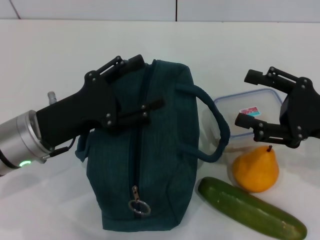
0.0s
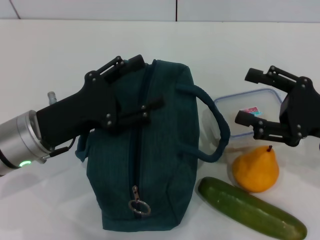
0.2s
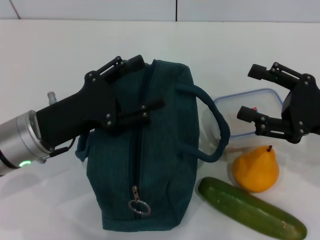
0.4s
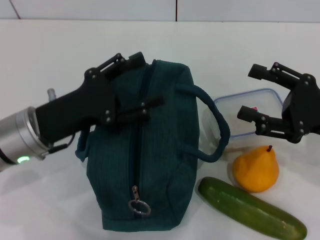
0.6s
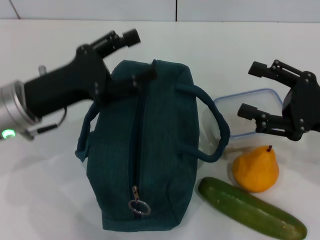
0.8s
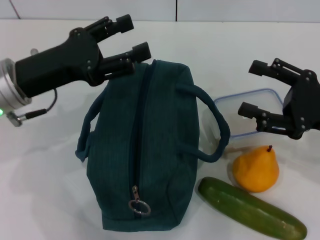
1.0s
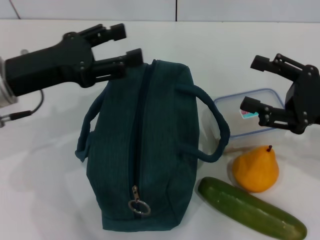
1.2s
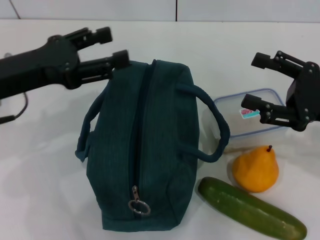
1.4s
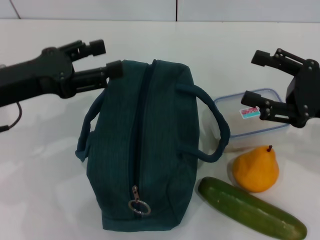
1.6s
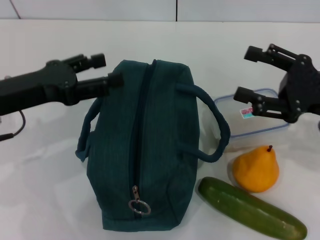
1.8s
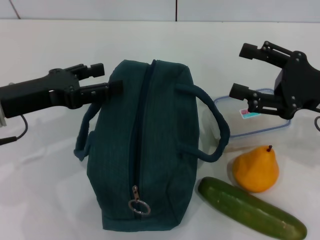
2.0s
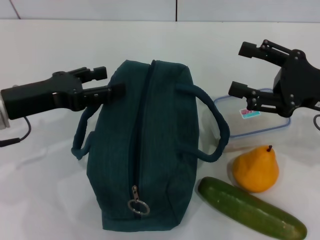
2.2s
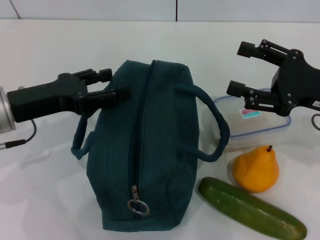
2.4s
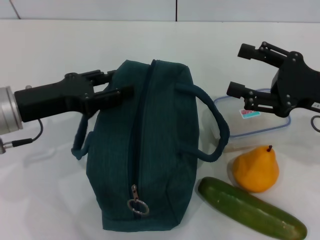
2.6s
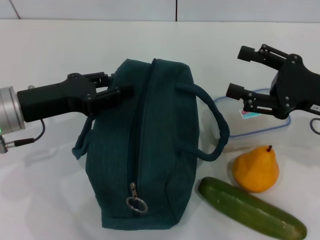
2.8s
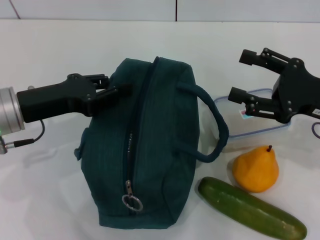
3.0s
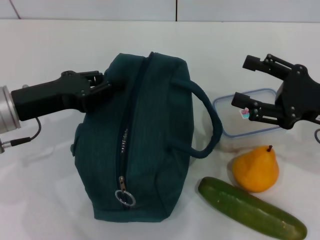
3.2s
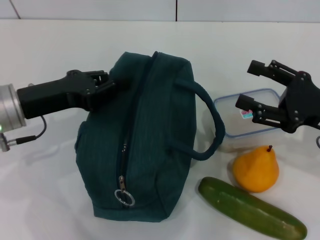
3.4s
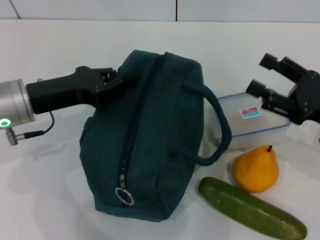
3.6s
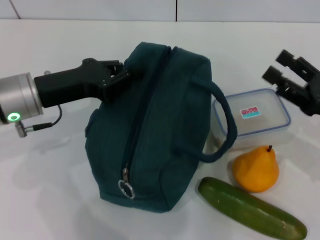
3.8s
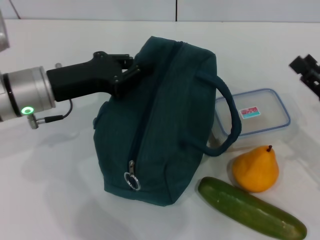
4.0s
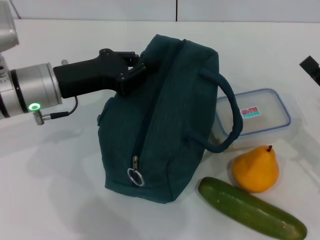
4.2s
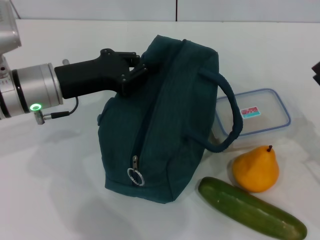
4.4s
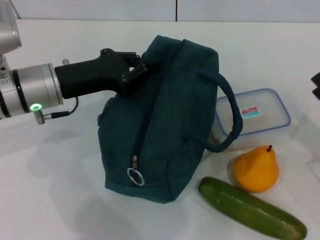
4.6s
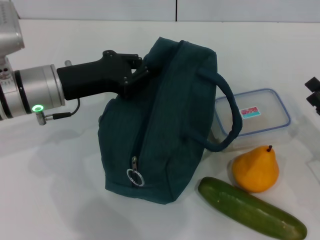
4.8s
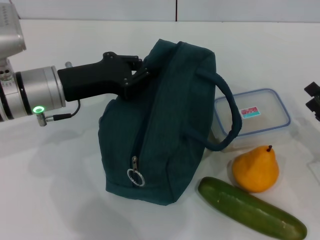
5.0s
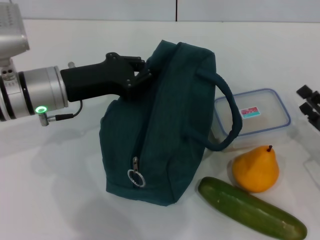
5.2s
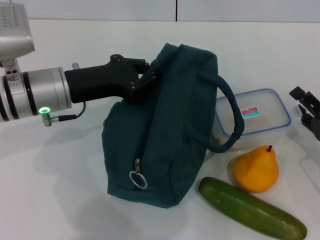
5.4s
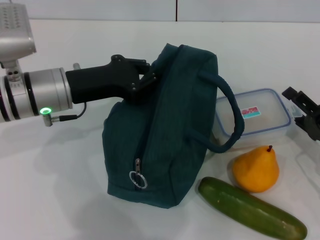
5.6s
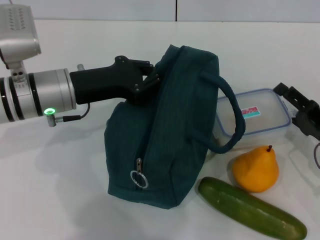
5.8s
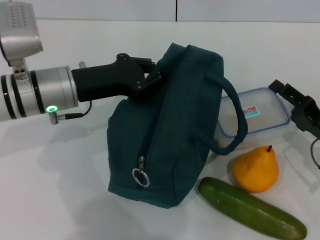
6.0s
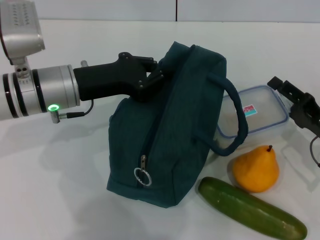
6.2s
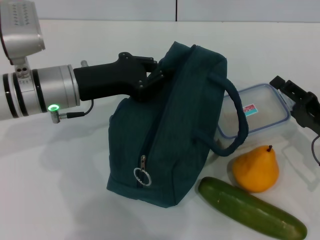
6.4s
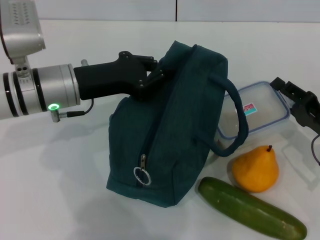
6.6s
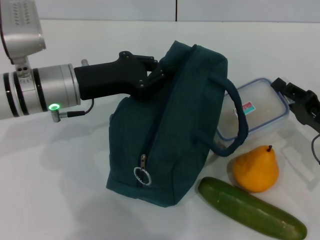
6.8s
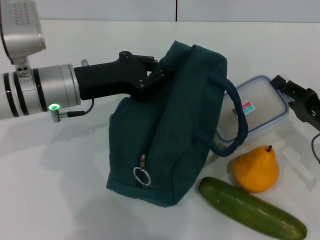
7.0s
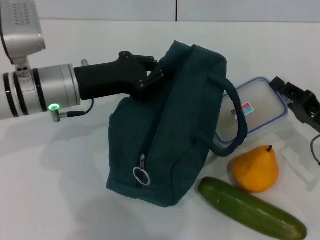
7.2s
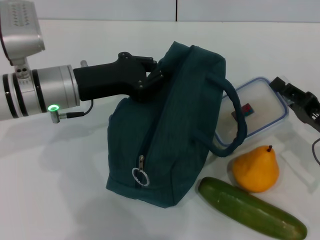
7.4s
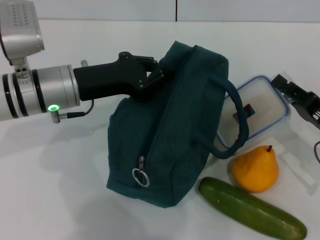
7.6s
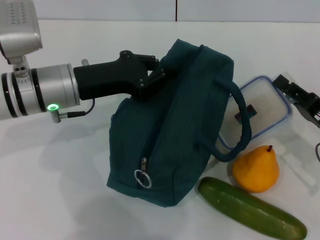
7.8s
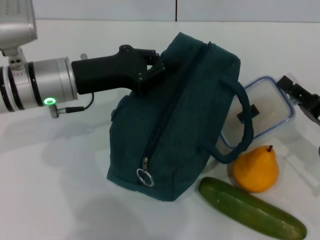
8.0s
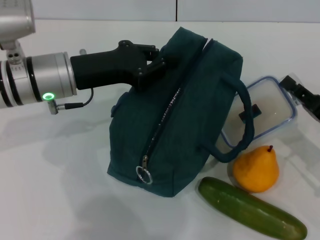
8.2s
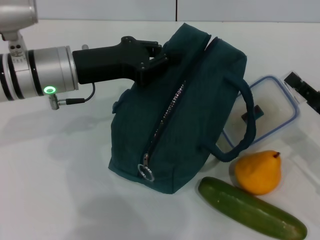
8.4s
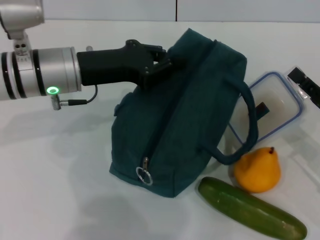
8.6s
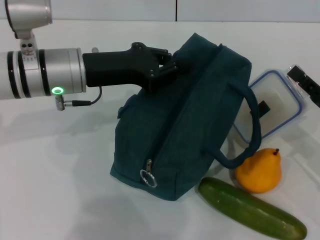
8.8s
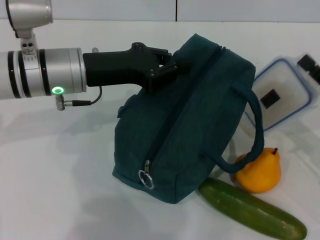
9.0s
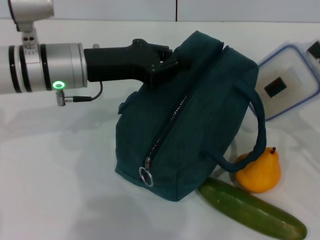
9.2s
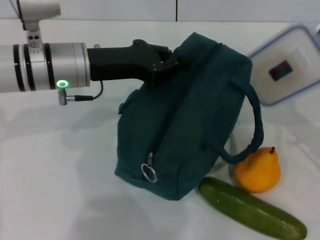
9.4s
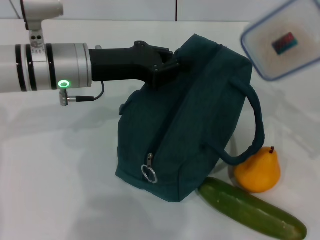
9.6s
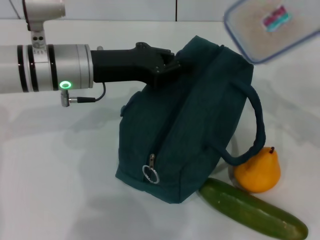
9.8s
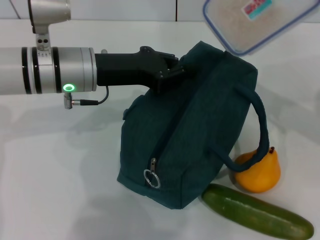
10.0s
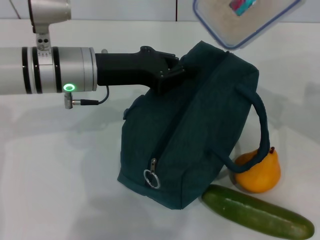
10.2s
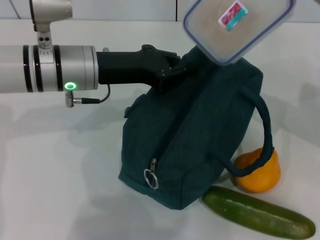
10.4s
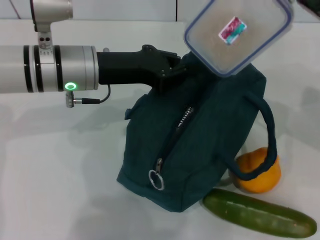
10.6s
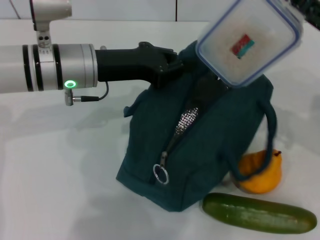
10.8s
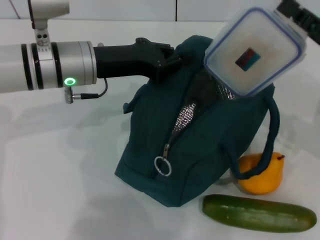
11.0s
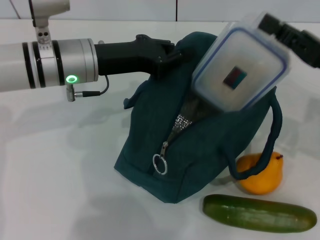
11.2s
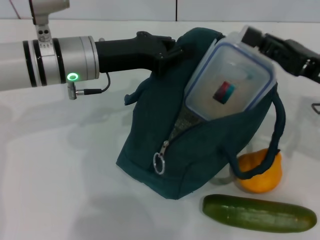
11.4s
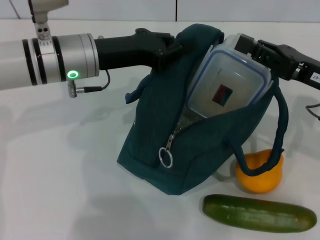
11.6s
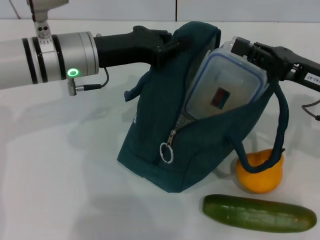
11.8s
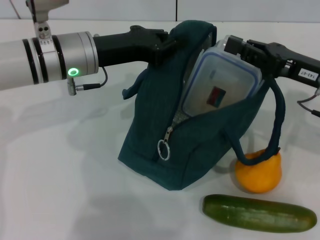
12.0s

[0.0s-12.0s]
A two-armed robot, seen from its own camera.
Step, 0.0s to 5.0s: Hold the lunch bag with your left hand.
Step, 5.2s to 7.6s: Pick up the lunch box with your right hand.
0.0s to 1.6s: The left gripper is displaced upward by approximately 5 cm.
1.6s to 3.0s: The left gripper closes its fingers.
3.0s to 4.4s: The right gripper shifts about 10 cm downward, backward and to the right. The left gripper shifts by roughly 5 cm, and closes.
6.0s to 7.6s: The right gripper closes.
9.0s to 10.4s: The right gripper heads upward, forward and to the left, covering some 15 cm.

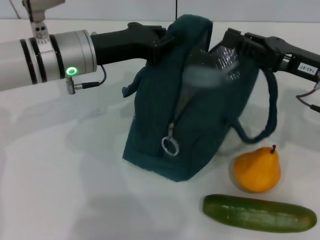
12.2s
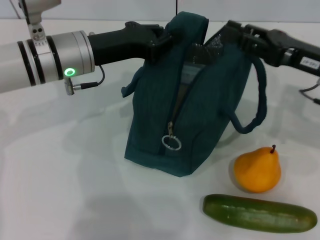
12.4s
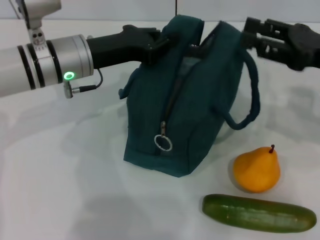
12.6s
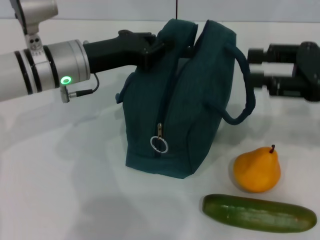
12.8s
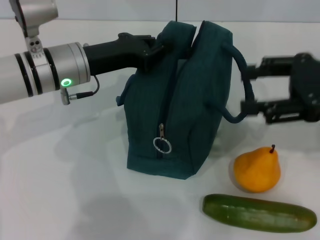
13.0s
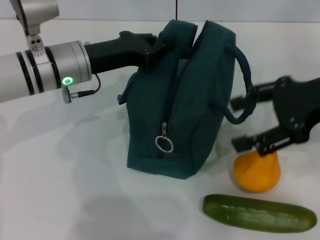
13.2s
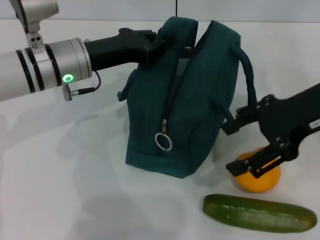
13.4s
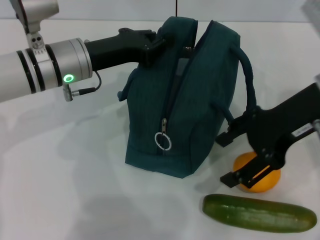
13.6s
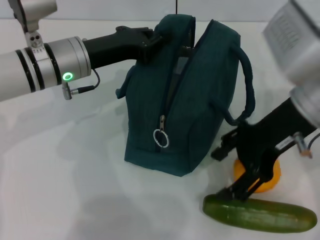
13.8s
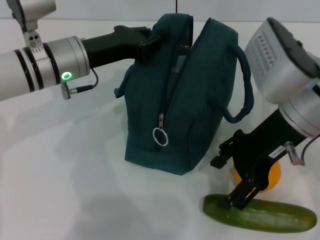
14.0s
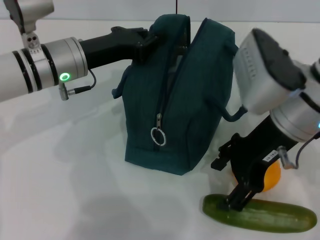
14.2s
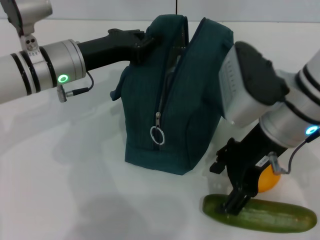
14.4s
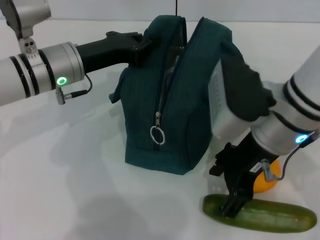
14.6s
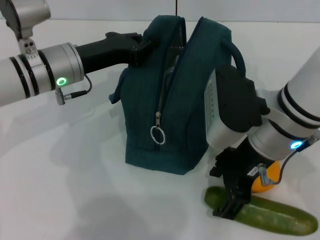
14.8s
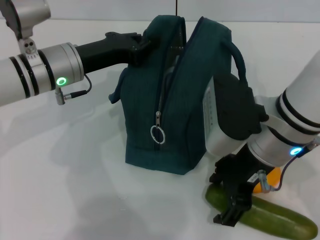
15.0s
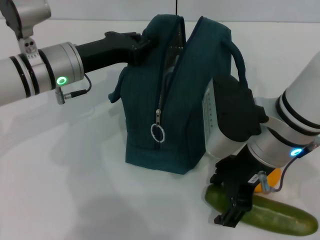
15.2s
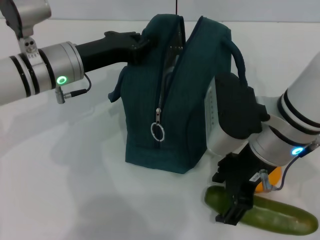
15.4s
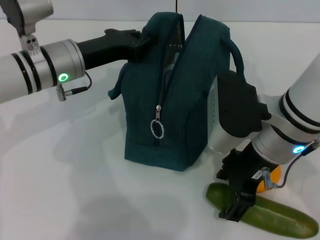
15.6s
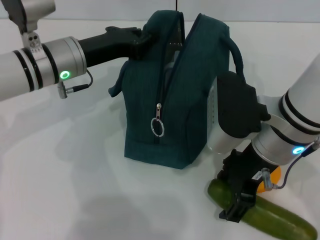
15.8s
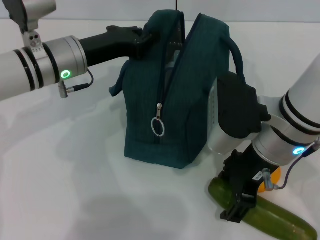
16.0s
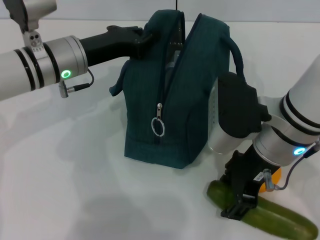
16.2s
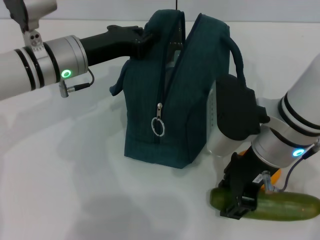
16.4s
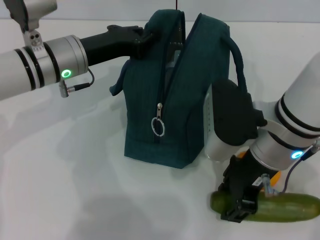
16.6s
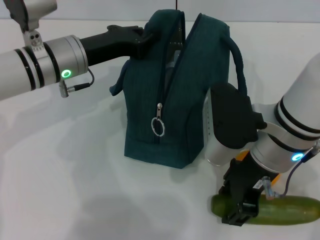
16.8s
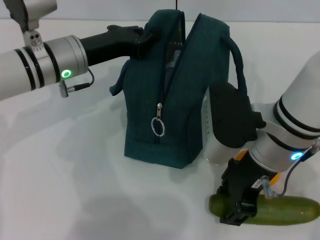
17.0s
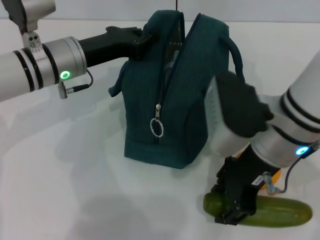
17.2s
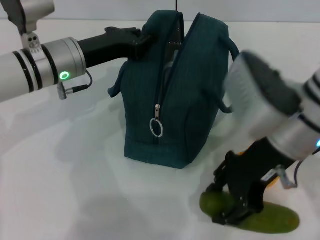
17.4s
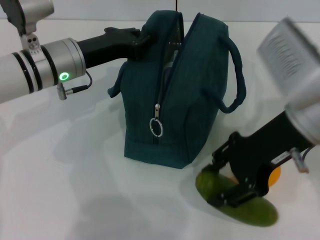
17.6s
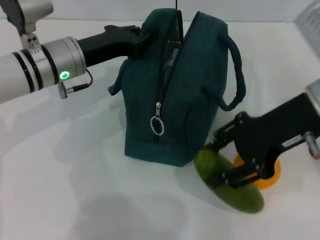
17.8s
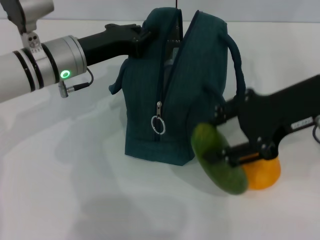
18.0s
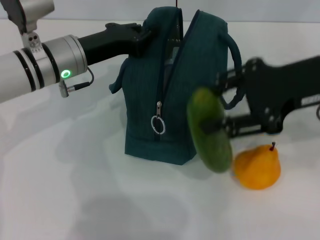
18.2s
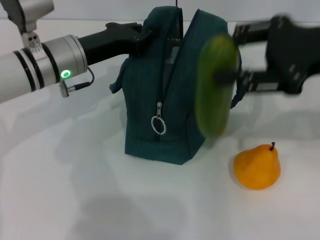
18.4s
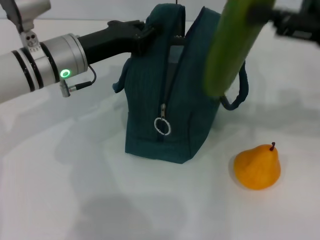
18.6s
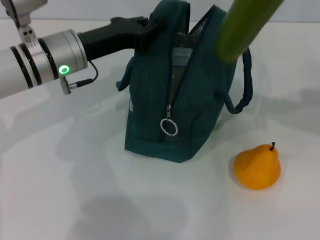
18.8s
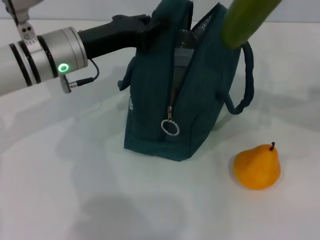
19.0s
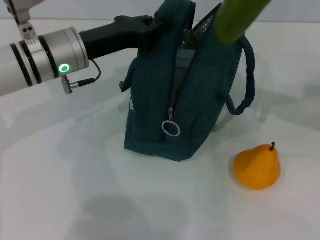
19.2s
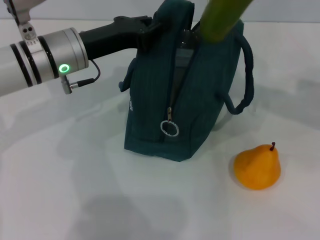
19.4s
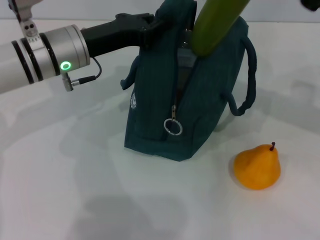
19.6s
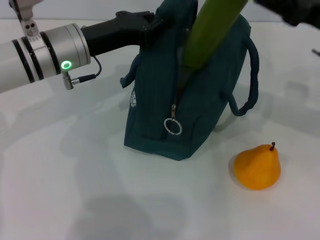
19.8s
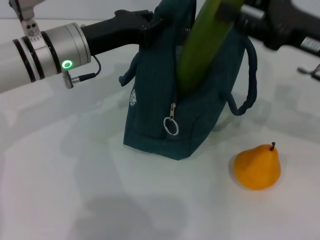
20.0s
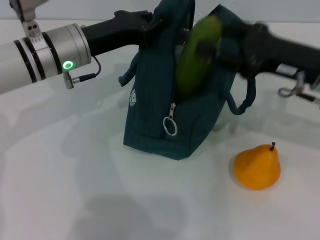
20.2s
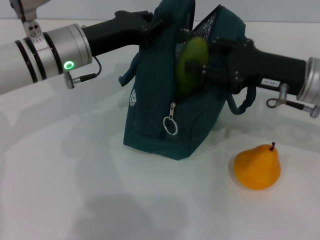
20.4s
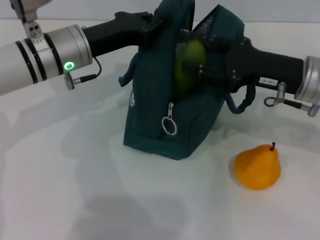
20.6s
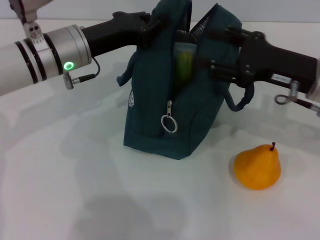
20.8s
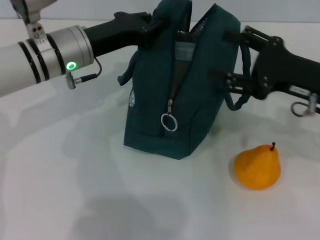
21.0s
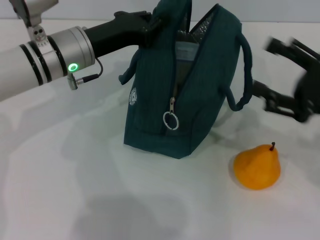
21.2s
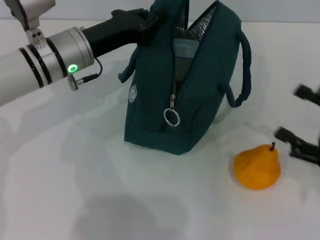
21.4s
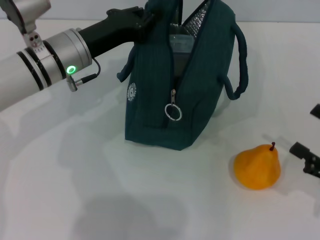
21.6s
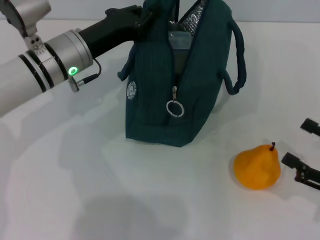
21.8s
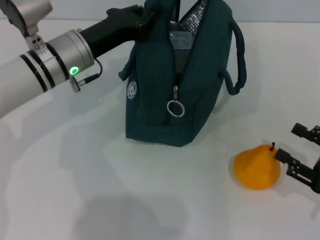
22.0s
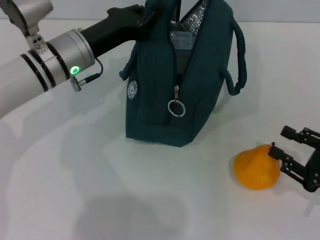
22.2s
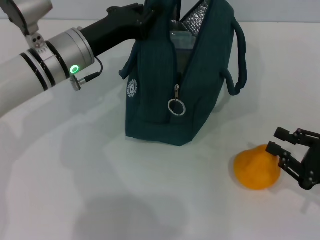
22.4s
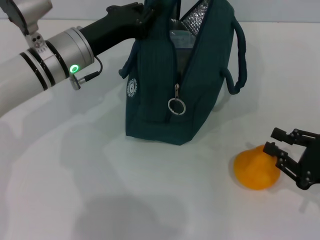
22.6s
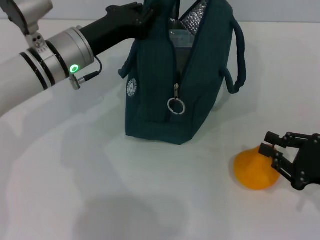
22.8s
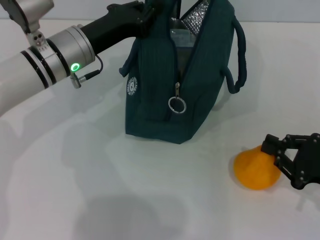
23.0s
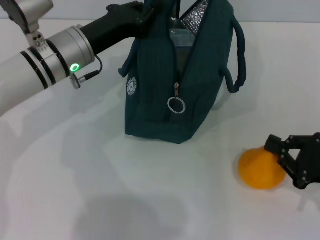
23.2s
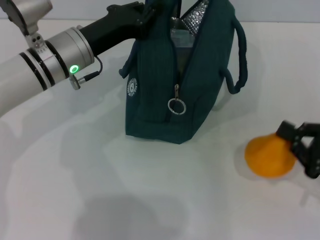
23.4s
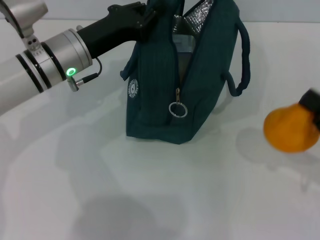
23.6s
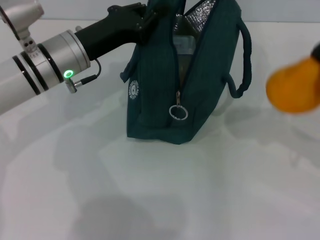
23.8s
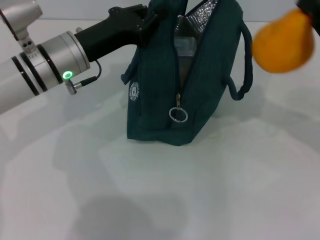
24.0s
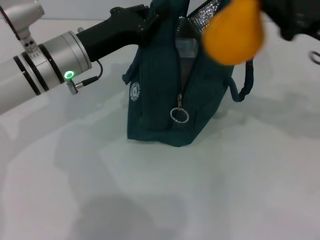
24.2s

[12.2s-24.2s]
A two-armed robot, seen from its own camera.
Step, 13.2s to 16.6s: Pick up the cucumber with your right hand.
Step, 17.0s to 21.2s: Put the cucumber into the lunch bag with your right hand.
Step, 21.4s to 23.0s: Grab the pear with your right hand.
12.2s to 13.8s: The right gripper is displaced to the left and upward by roughly 10 cm, and opens.
13.8s to 15.2s: The right gripper is displaced to the left by approximately 5 cm.
15.2s to 16.6s: The right gripper closes up.
16.6s to 18.2s: The right gripper shifts roughly 15 cm to the right and upward.
18.2s to 19.8s: The right gripper heads downward, covering about 5 cm.
19.8s to 21.2s: The right gripper travels backward and downward by approximately 10 cm, and opens up.
21.2s to 22.6s: The right gripper shifts approximately 10 cm downward and backward, and closes.
22.6s to 24.2s: The right gripper shifts some 20 cm upward, forward and to the left.
